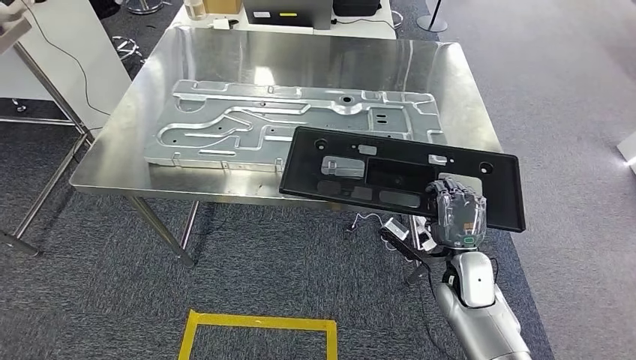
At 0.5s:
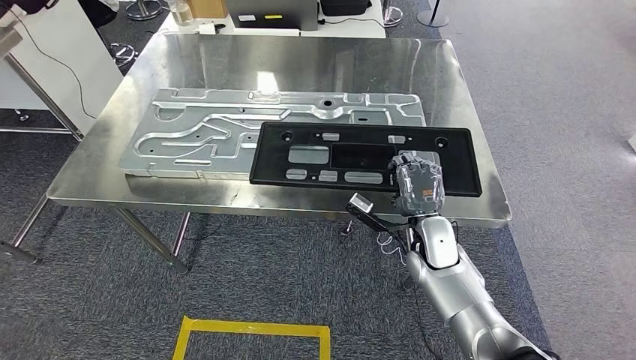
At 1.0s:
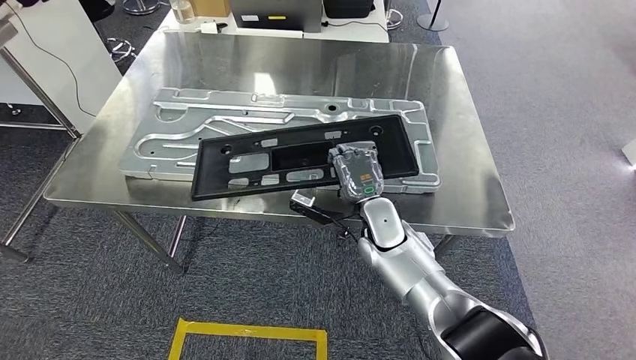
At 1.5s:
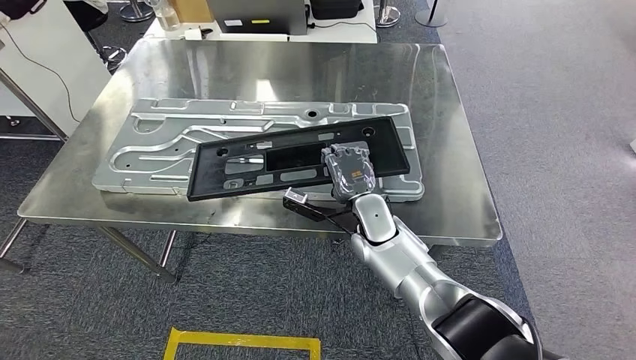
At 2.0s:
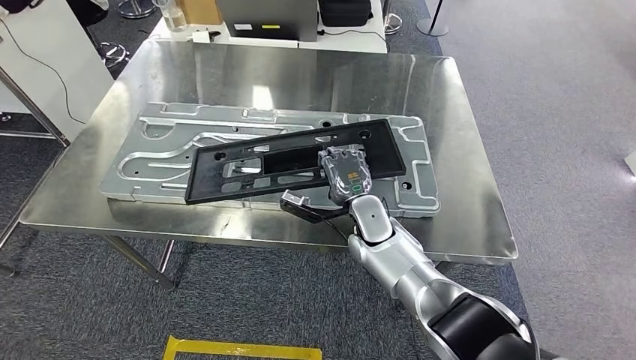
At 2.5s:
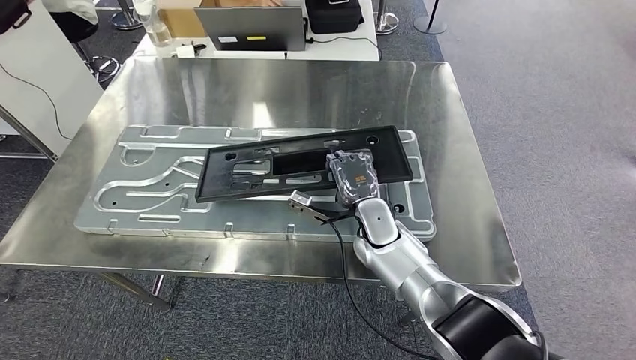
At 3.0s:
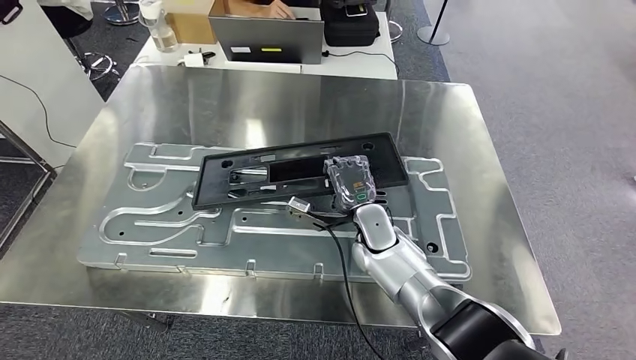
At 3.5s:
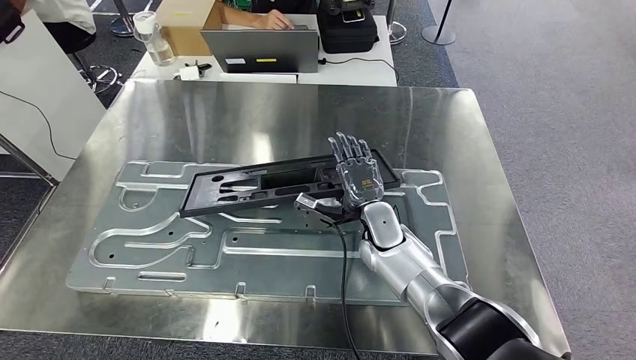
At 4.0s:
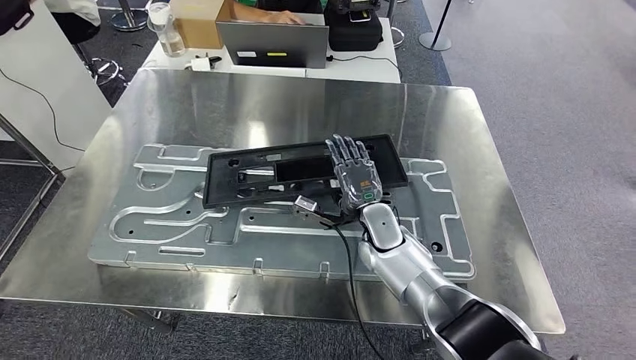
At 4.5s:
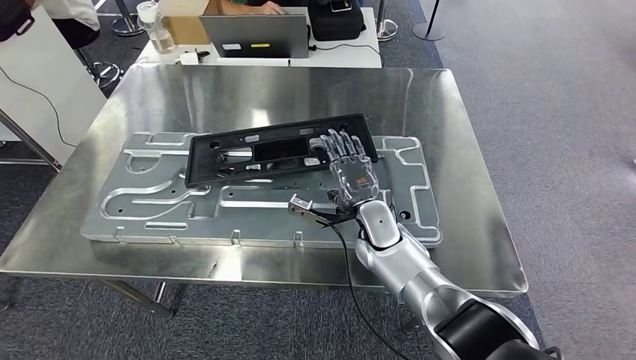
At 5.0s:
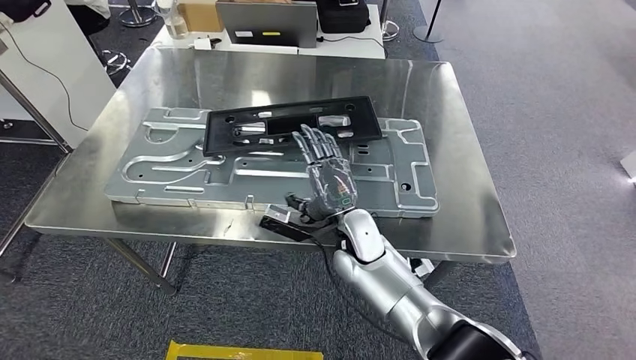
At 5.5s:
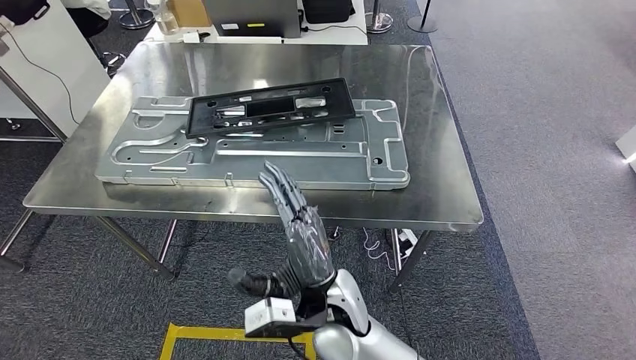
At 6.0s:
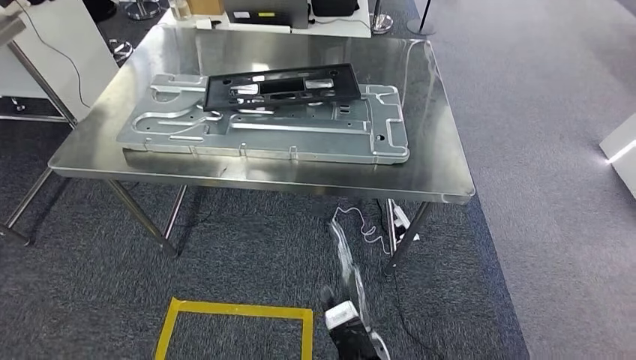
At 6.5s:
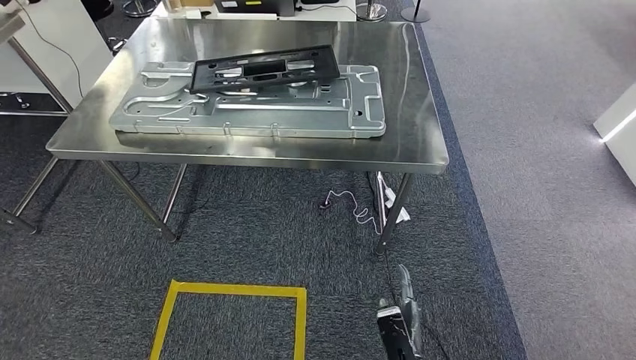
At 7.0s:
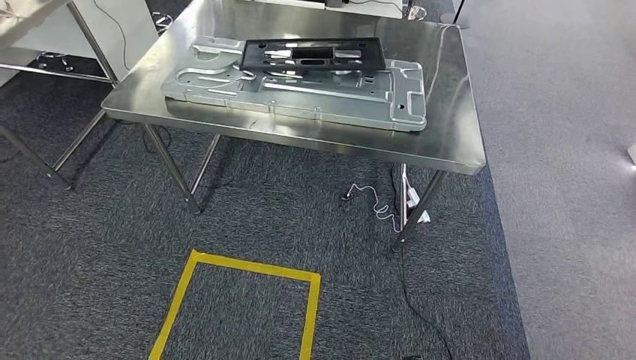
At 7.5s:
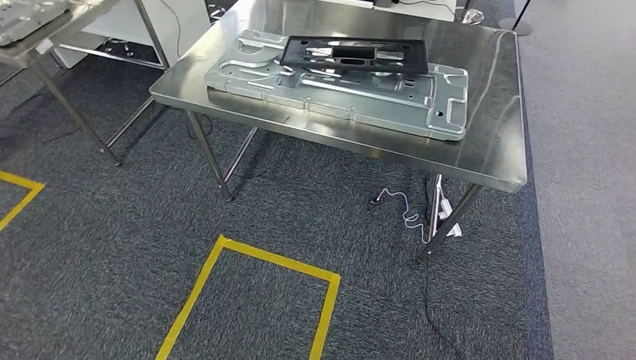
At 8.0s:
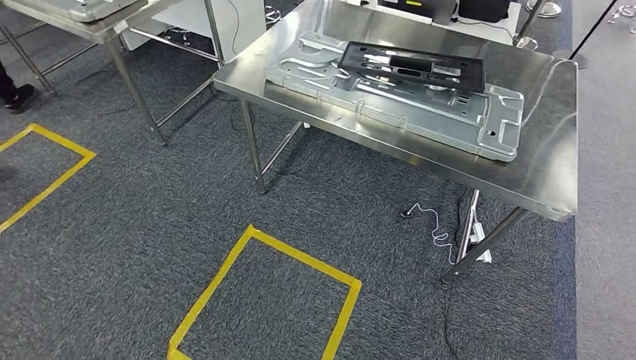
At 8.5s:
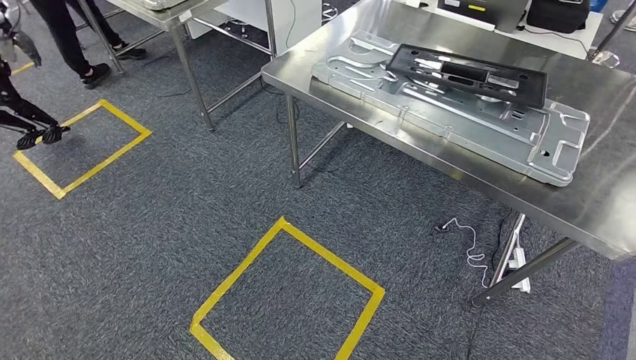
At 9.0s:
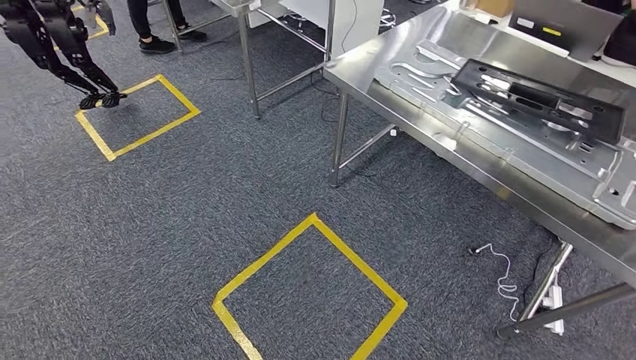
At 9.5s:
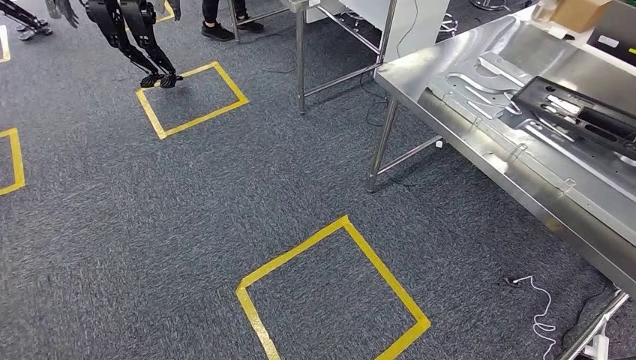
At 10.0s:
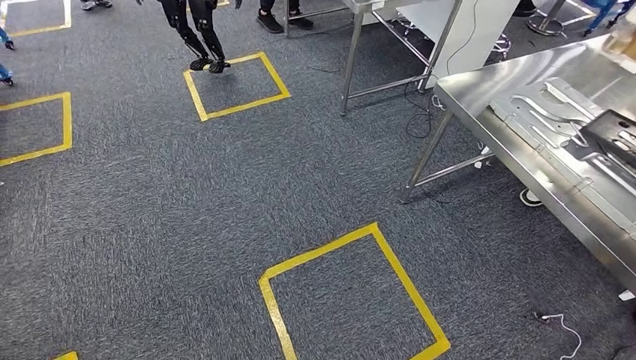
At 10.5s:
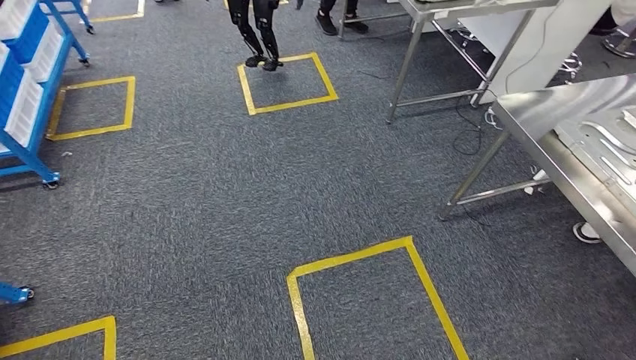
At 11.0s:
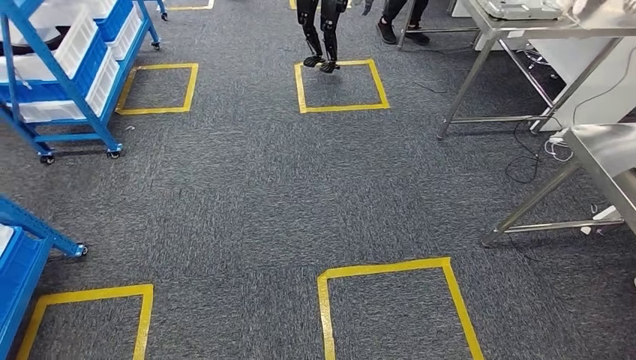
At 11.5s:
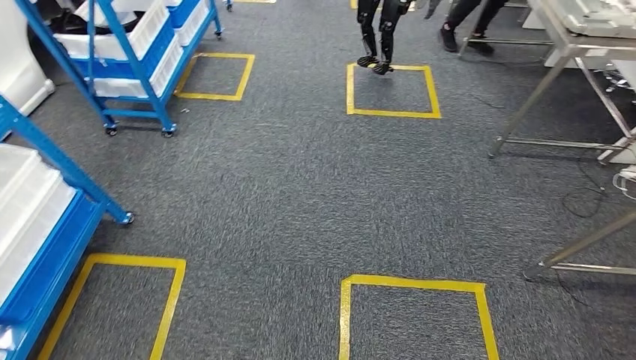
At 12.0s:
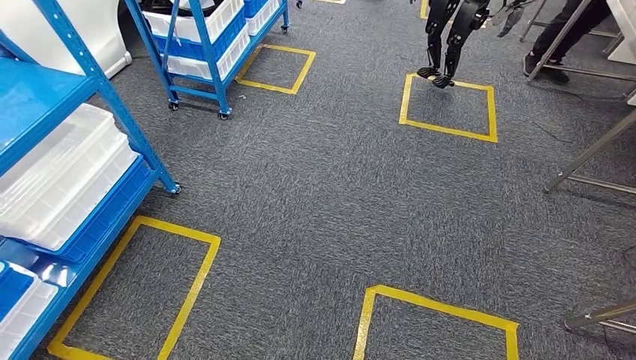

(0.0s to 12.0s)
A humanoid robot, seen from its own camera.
Step, 0.0s - 7.5s: Insert the large material into the corresponding slot on the workbench.

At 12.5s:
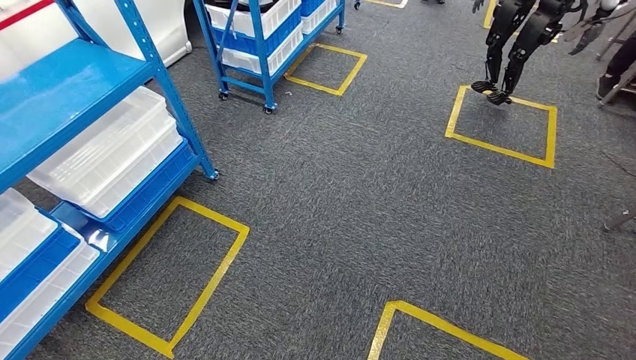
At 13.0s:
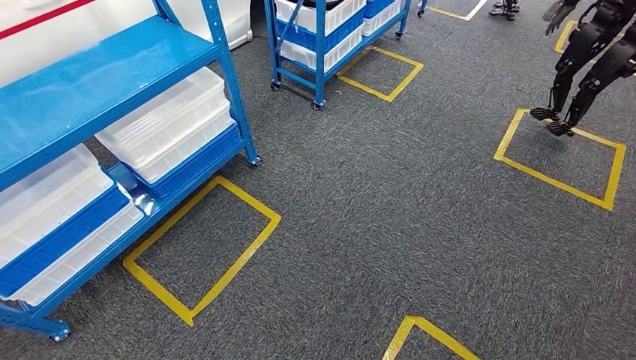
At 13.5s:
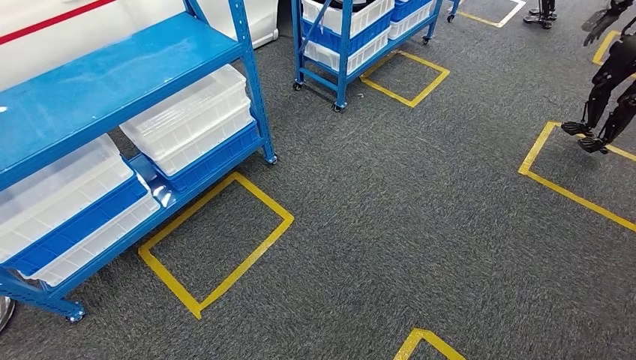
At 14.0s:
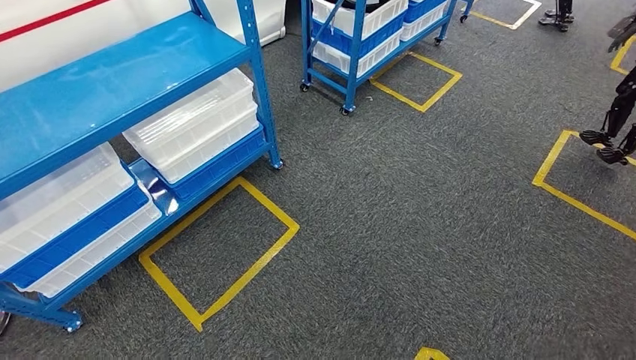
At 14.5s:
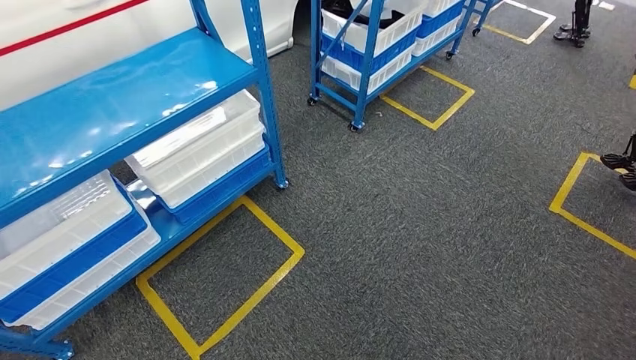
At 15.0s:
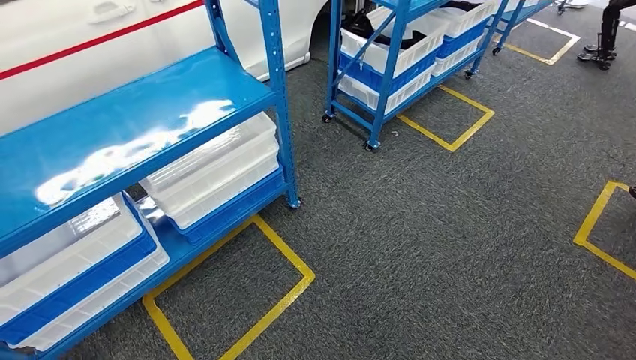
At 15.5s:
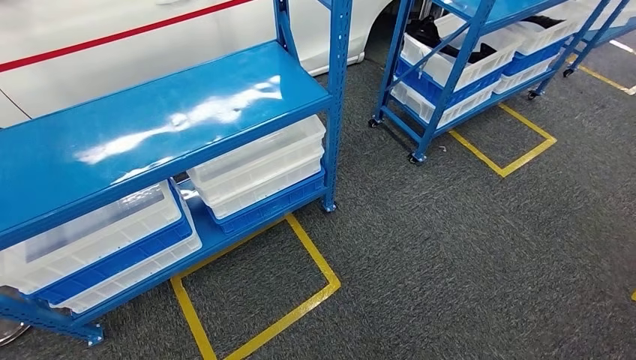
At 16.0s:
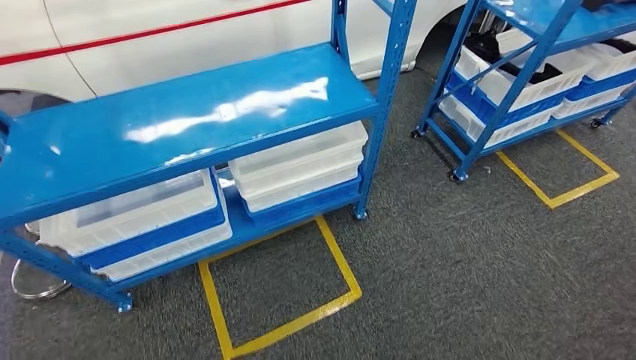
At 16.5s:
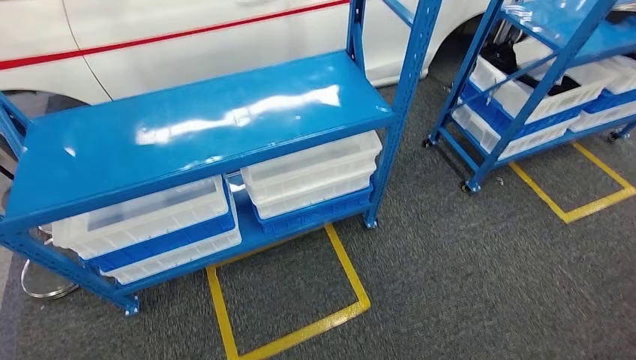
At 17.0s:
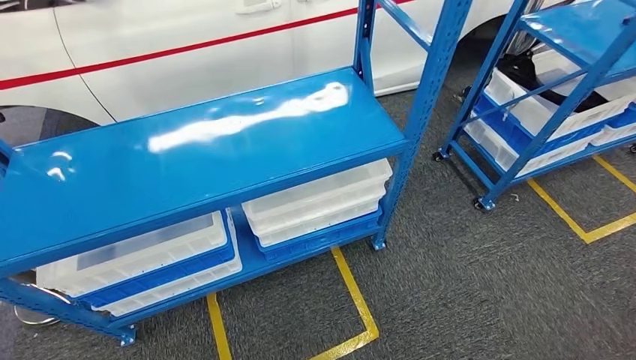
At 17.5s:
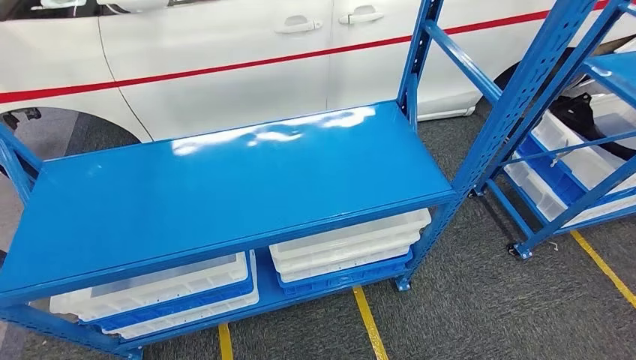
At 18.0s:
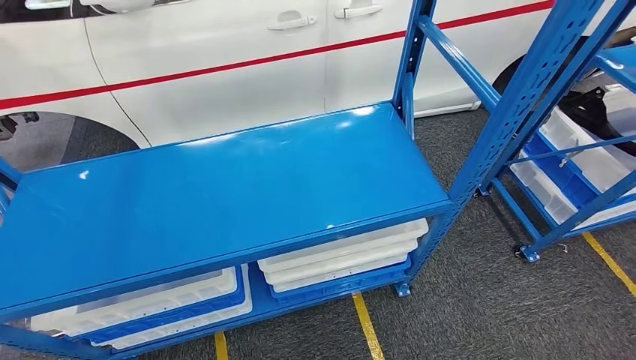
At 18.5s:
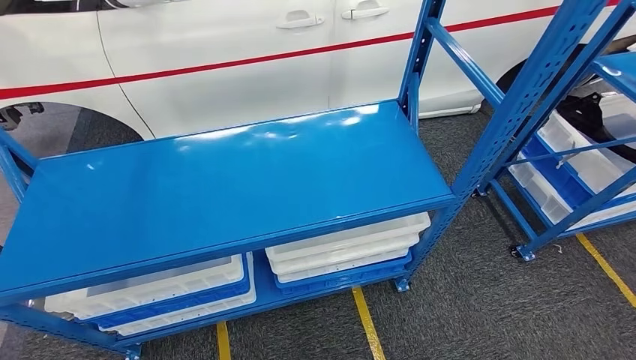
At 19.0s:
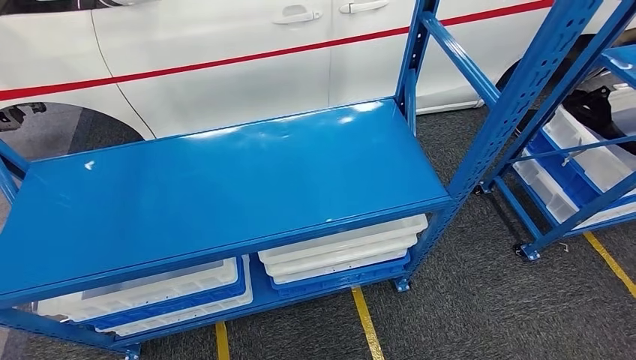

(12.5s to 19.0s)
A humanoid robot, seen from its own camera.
Step, 12.5s - 19.0s: Move to the initial position of the shelf.
